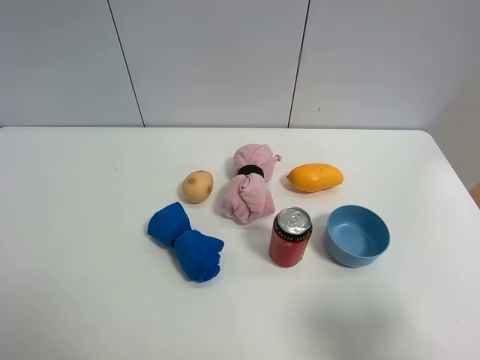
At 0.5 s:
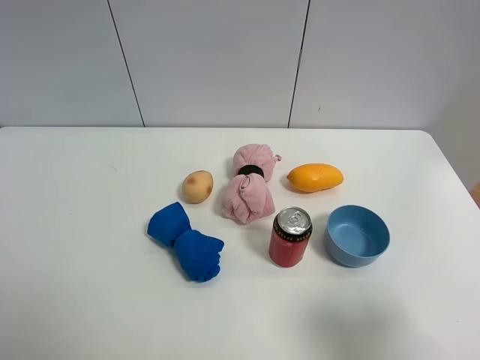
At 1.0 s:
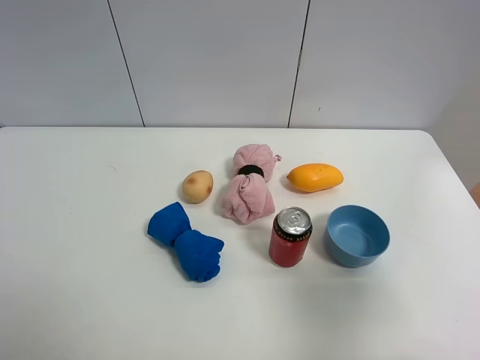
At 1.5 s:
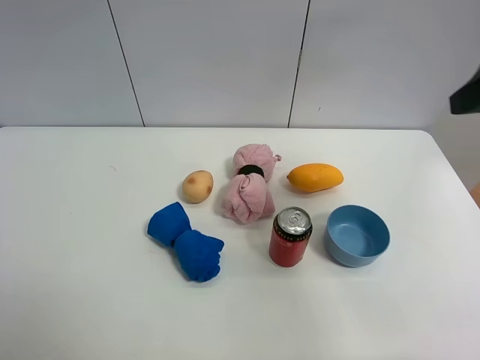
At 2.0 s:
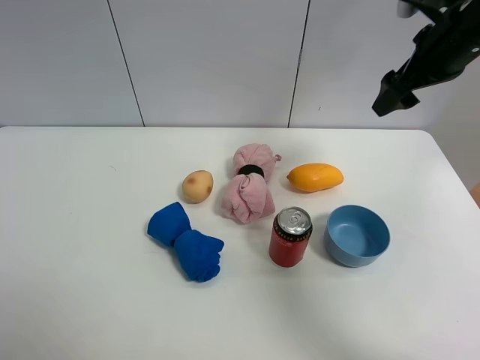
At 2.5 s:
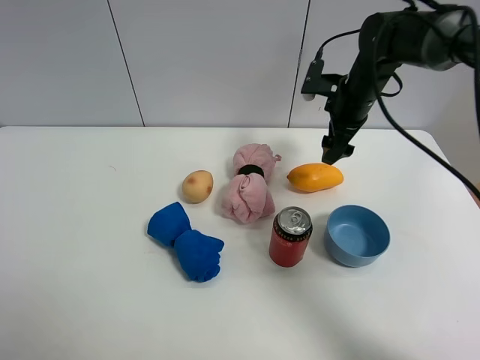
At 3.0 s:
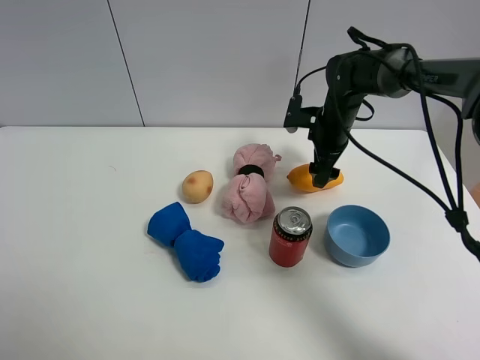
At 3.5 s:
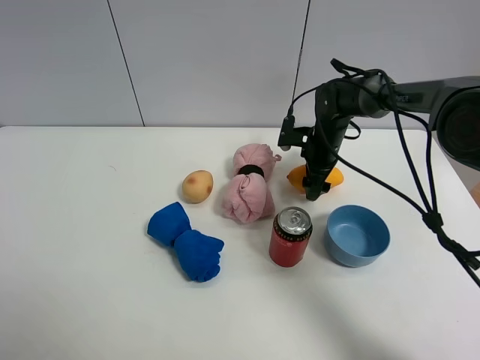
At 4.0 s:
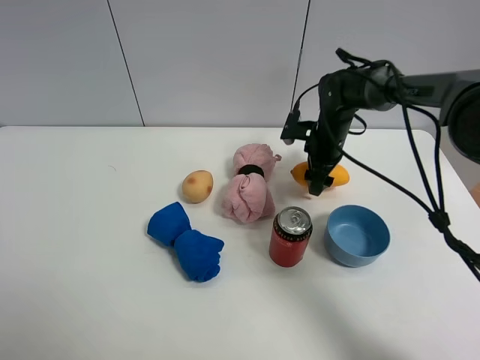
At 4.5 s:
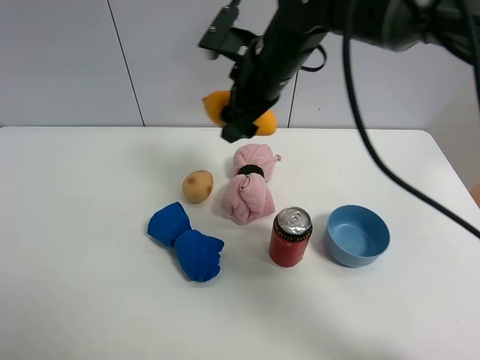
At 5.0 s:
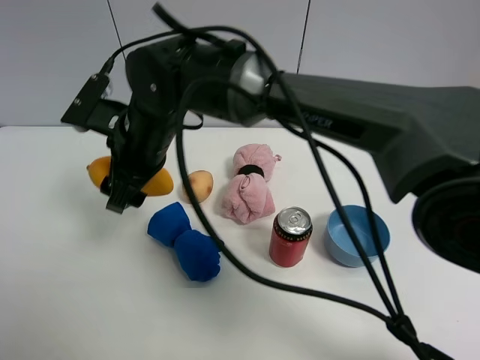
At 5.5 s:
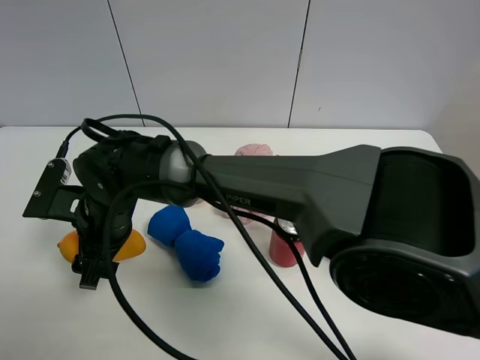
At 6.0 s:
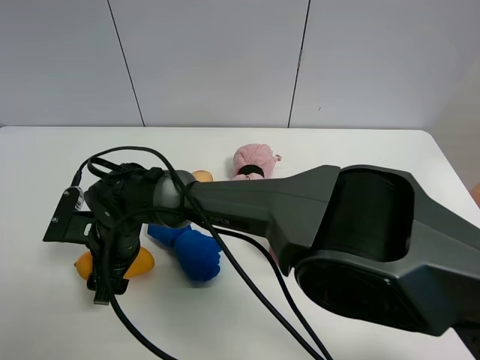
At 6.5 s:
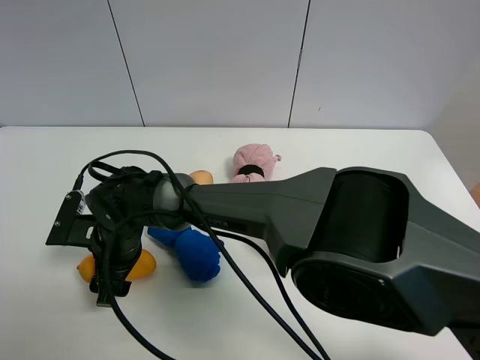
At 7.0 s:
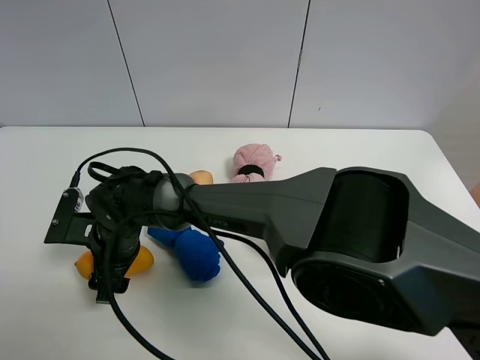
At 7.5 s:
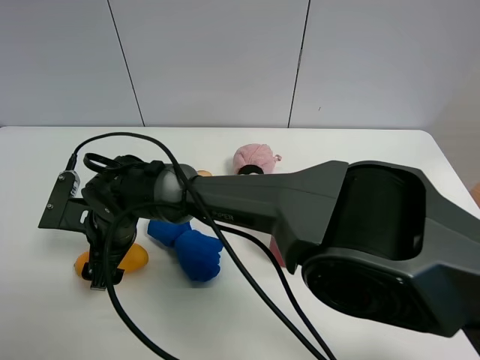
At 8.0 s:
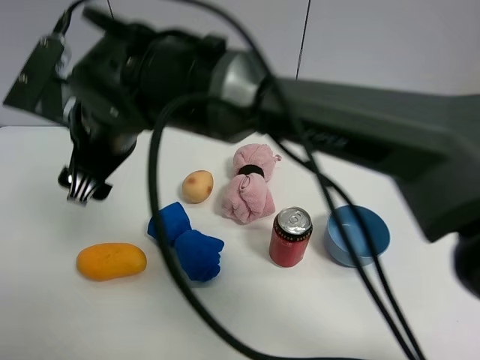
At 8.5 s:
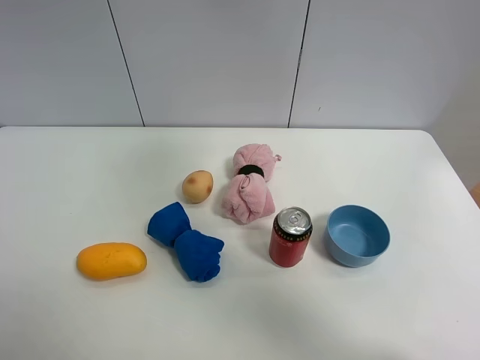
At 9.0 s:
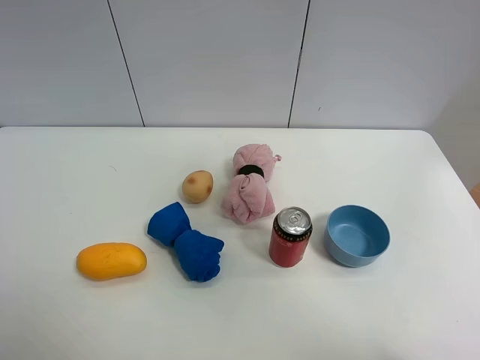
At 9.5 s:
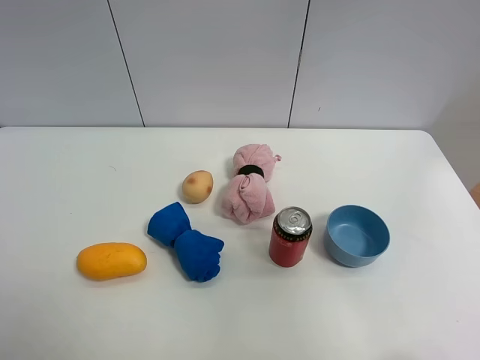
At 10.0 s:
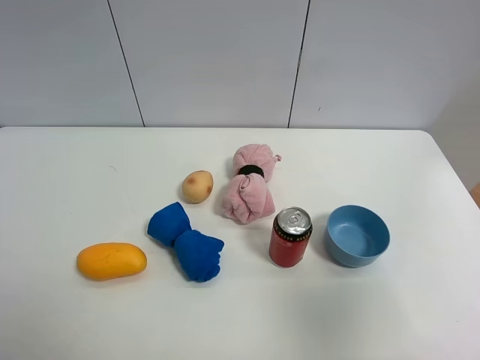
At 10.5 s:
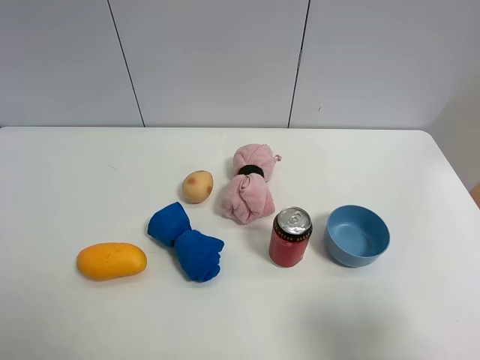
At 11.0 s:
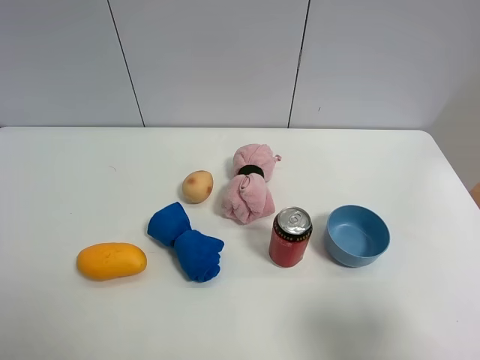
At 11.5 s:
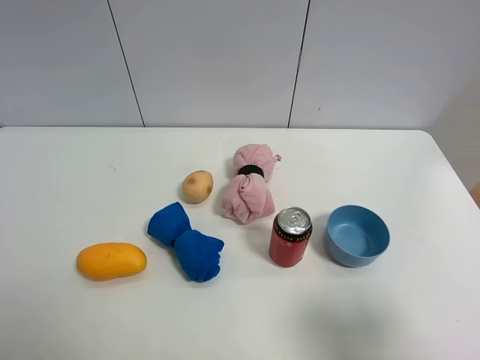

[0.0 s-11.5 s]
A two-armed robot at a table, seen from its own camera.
Task of the whole recording: the gripper move the object.
Step, 0.0 to 3.5 s: Grasp the mango with the right gripper.
Step, 4.0 to 7.5 s: Place the mango on the table with the right gripper.
0.0 to 2.0 s: The right gripper shifts roughly 35 cm forward.
2.0 to 4.0 s: The right gripper moves downward and to the left, about 20 cm, and closes its fingers.
4.0 to 6.0 s: The right gripper is displaced to the left and backward by approximately 40 cm.
6.0 to 7.5 s: The right gripper opens its fingers.
7.5 to 9.5 s: The right gripper shifts some 70 cm to the right, upward and backward.
9.5 to 11.5 s: The right gripper is displaced downward by approximately 30 cm.

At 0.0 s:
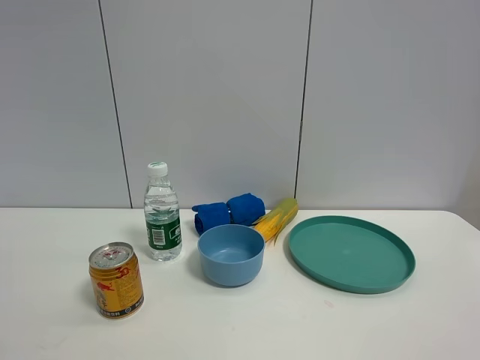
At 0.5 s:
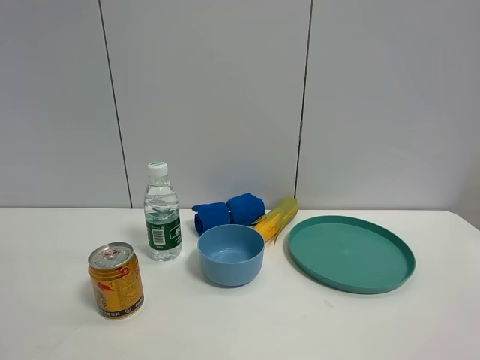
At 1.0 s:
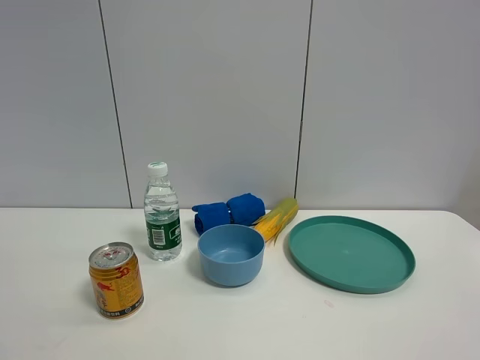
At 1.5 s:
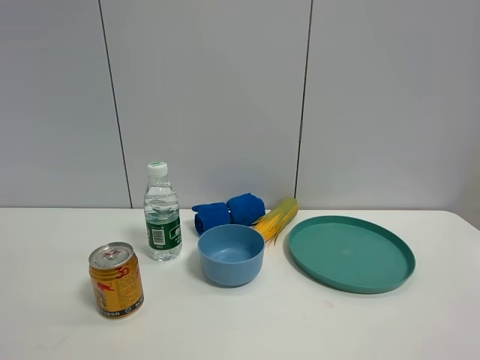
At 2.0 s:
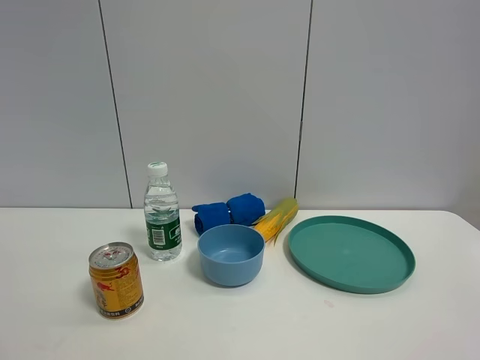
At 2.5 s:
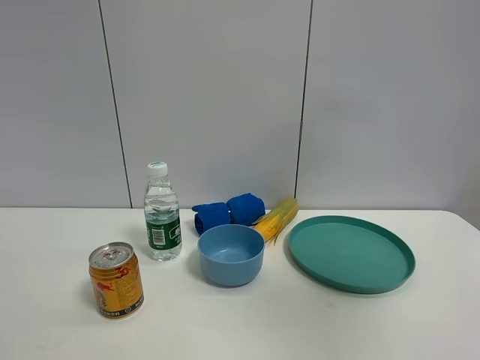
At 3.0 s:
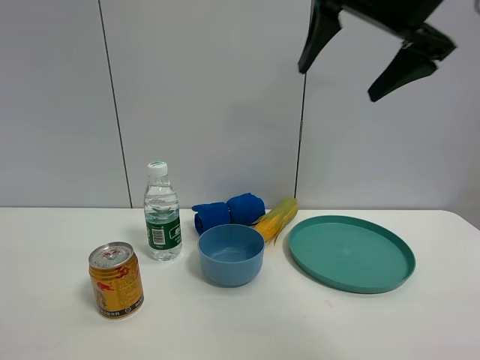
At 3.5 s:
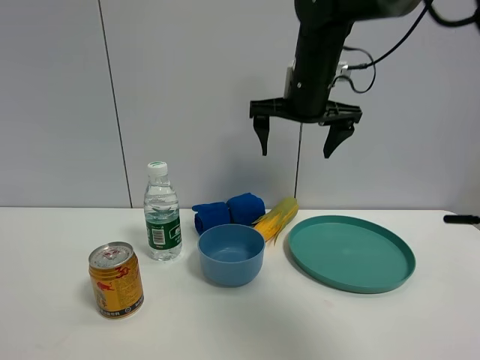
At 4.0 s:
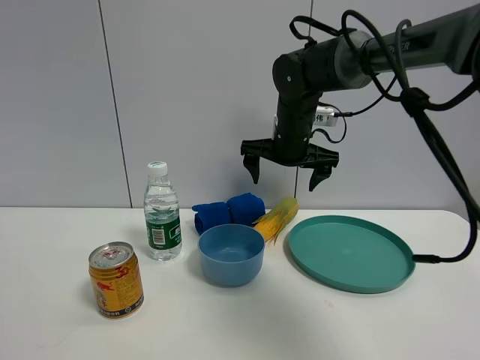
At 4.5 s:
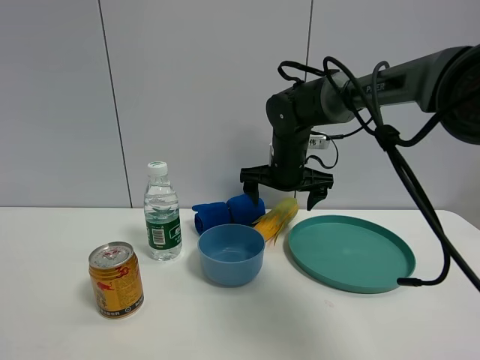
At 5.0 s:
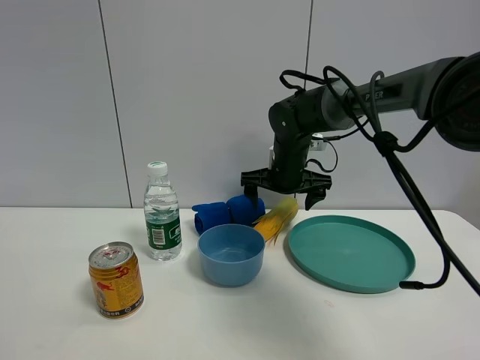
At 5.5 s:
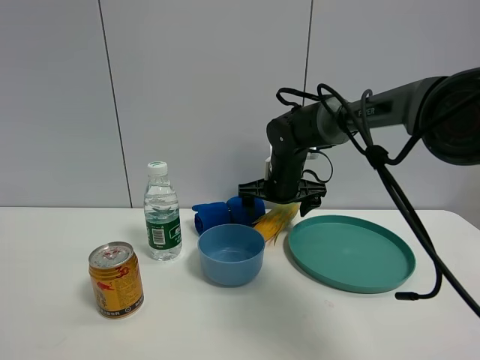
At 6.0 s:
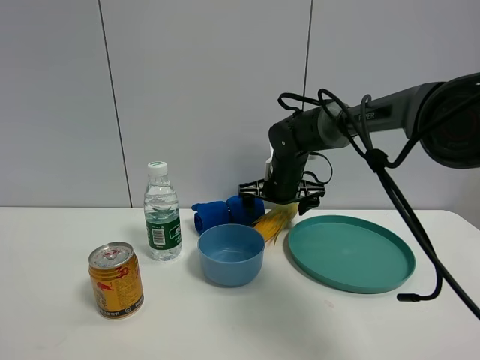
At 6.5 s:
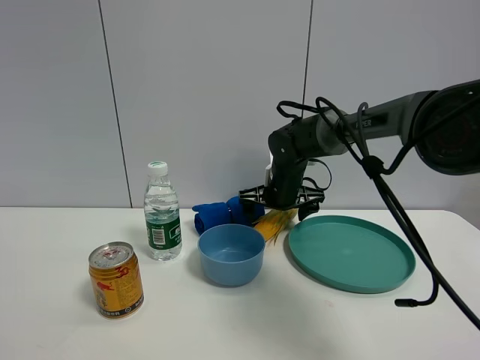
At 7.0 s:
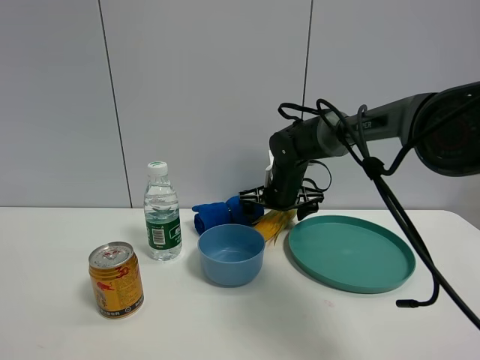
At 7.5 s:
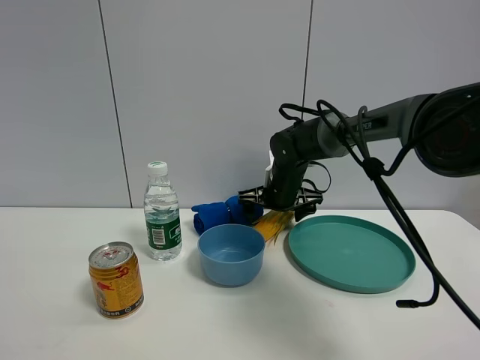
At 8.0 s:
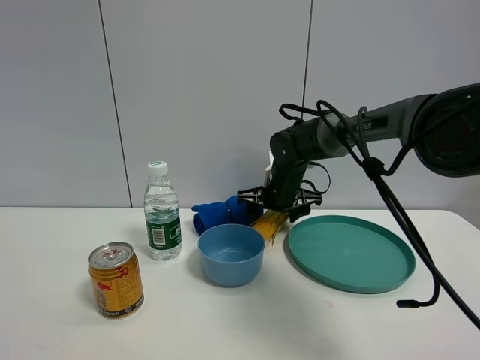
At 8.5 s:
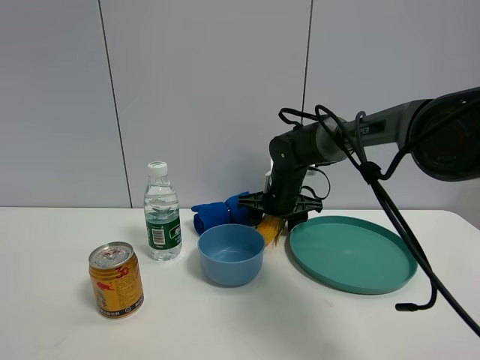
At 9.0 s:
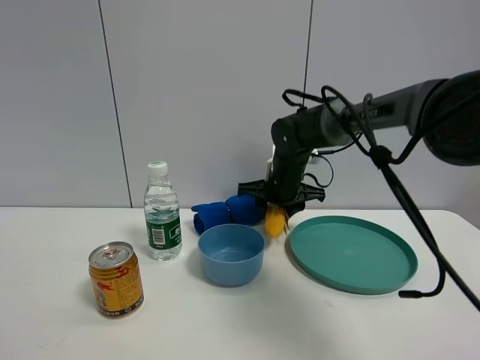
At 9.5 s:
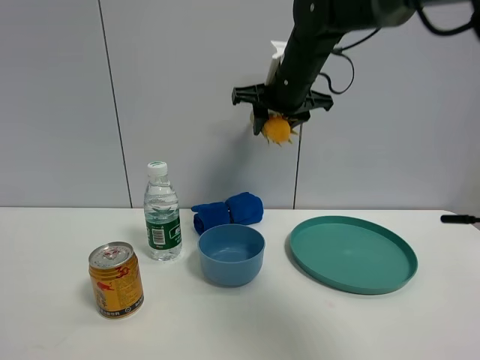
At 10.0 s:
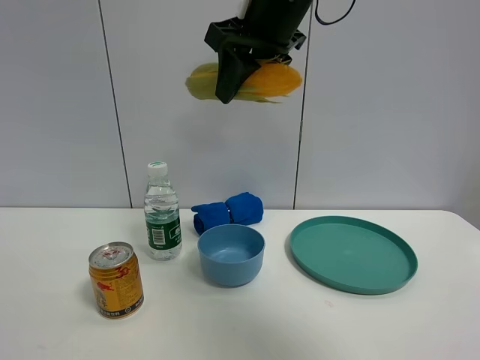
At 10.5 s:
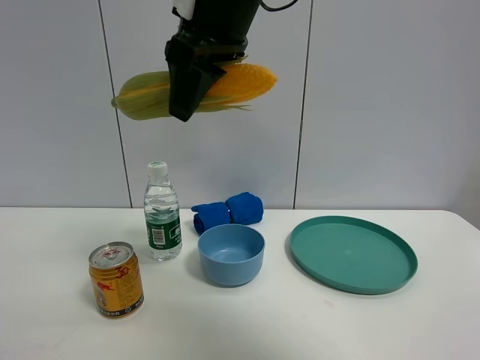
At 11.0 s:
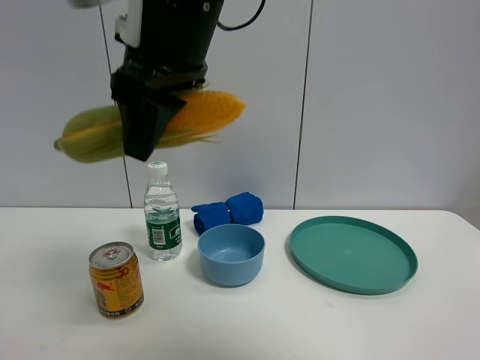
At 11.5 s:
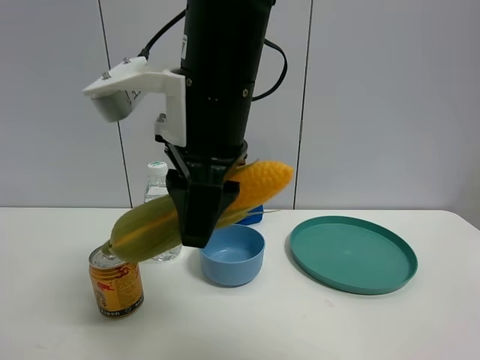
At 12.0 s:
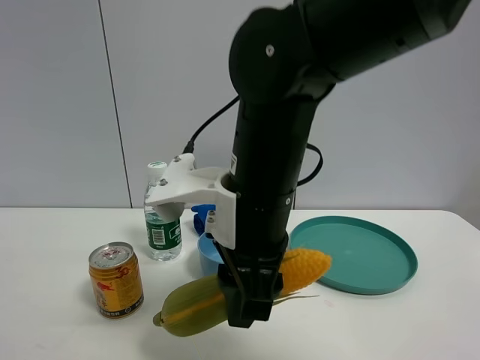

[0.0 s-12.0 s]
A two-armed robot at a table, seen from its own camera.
Task of the whole recording: the gripper move the object.
Step, 0.0 to 8.5 s: Grasp the corn with the right gripper.
2.0 to 4.0 s: The right gripper moves forward and to the left, approximately 50 cm.
4.0 to 6.0 s: The right gripper is displaced downward by some 10 cm.
6.0 to 8.0 s: The right gripper closes its fingers.
8.0 to 10.0 s: The right gripper goes about 30 cm upward and backward, and closes up.
10.0 to 12.0 s: The right gripper shifts about 20 cm downward and backward.

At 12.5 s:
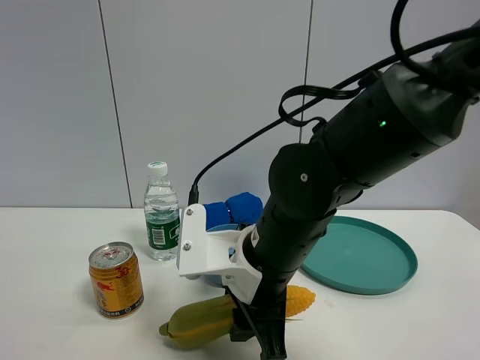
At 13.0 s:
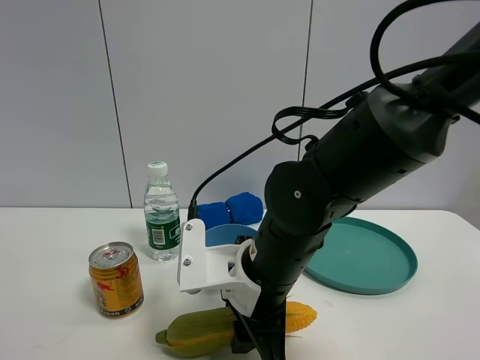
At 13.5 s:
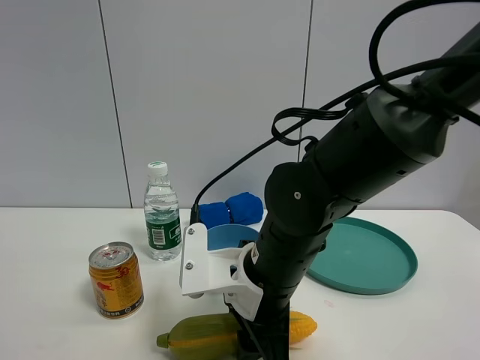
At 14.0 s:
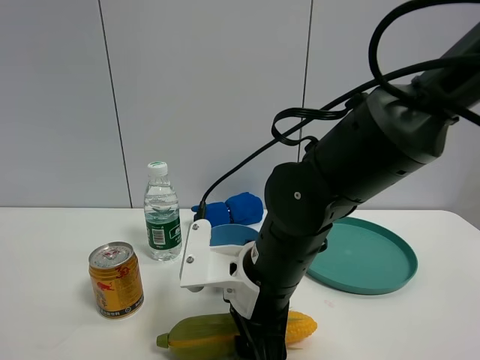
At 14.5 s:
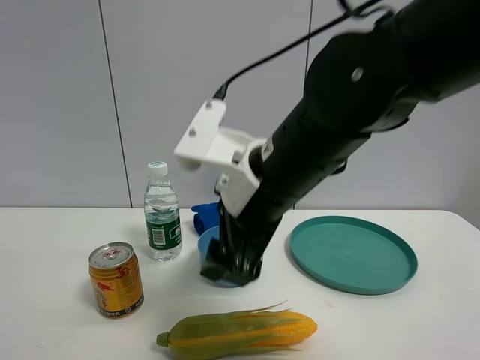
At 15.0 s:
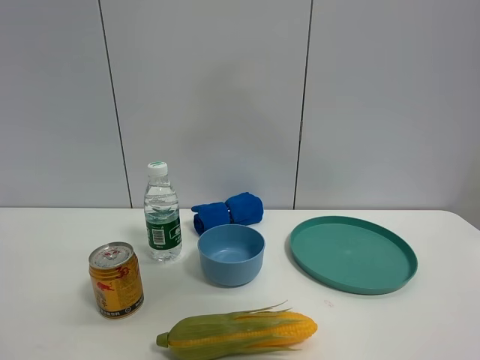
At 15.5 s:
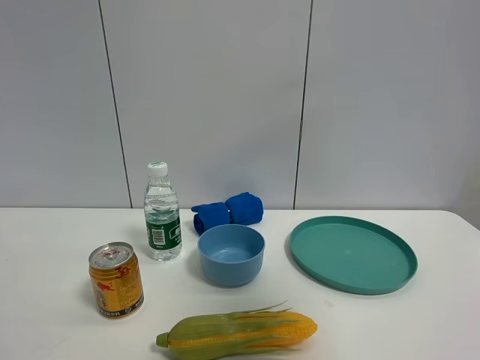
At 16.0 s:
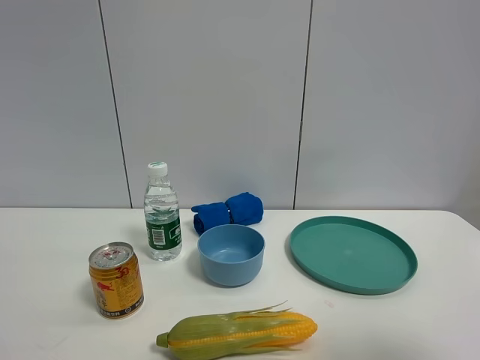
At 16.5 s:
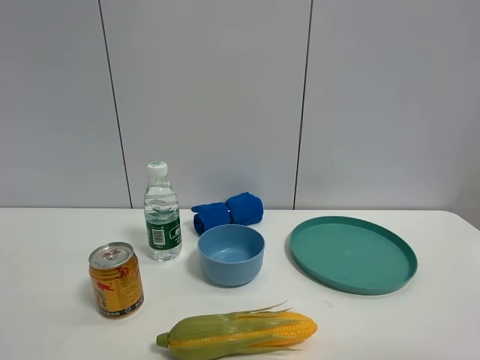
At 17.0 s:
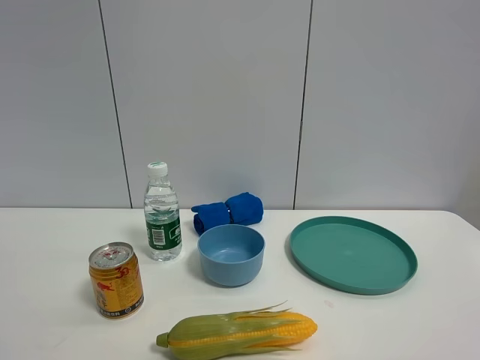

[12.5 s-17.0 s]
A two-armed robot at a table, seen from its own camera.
Task of the whole recording: the gripper move the object.
12.5 to 14.5 s: The right gripper is displaced upward by some 10 cm, and opens.
14.5 to 17.0 s: The right gripper heads to the right and backward, covering approximately 35 cm.
